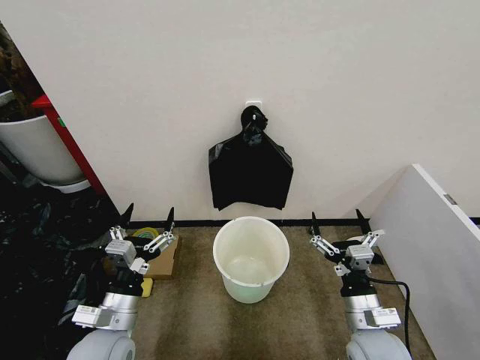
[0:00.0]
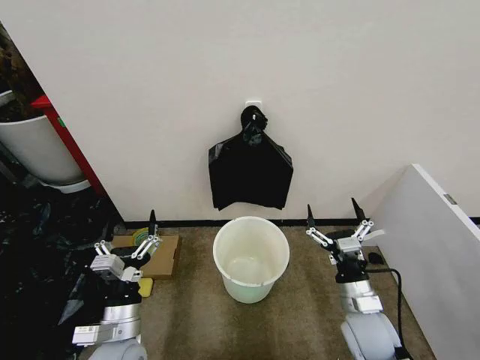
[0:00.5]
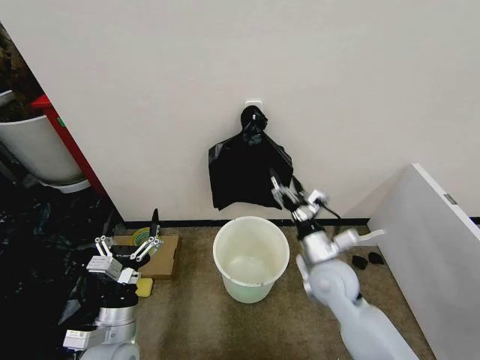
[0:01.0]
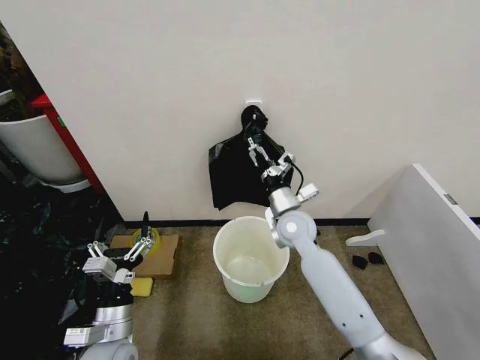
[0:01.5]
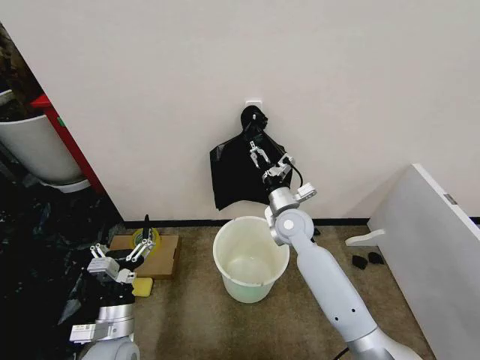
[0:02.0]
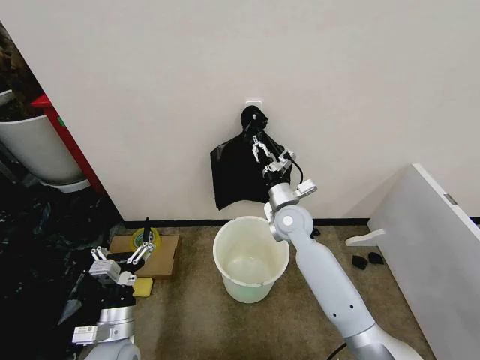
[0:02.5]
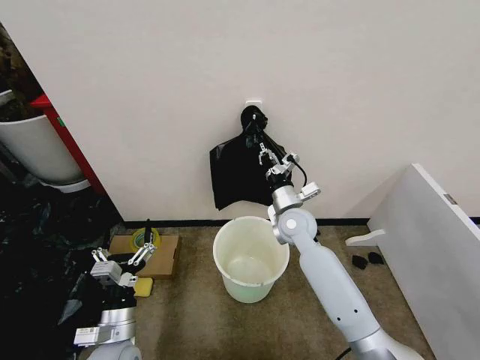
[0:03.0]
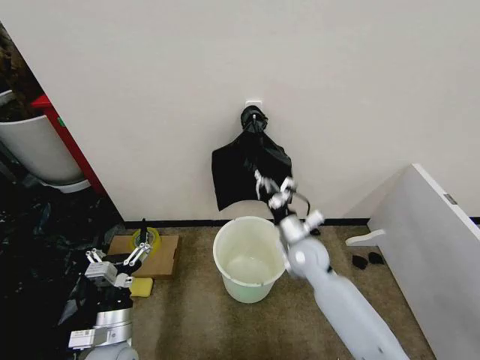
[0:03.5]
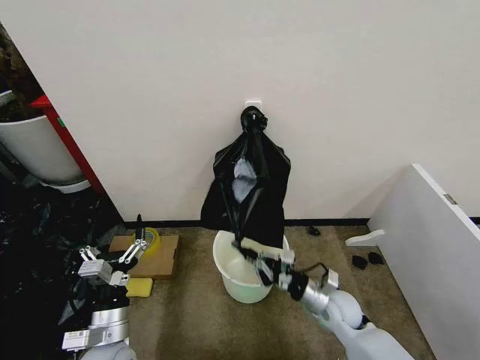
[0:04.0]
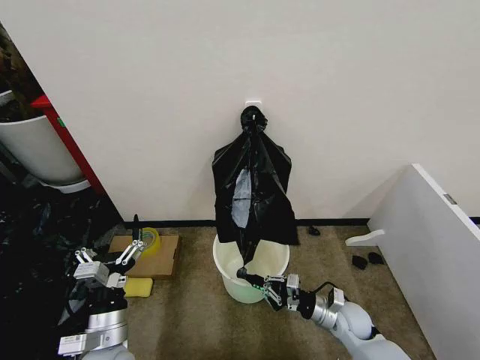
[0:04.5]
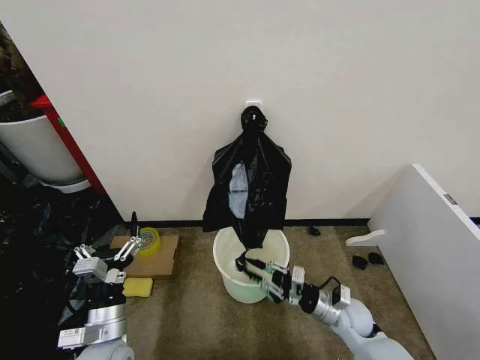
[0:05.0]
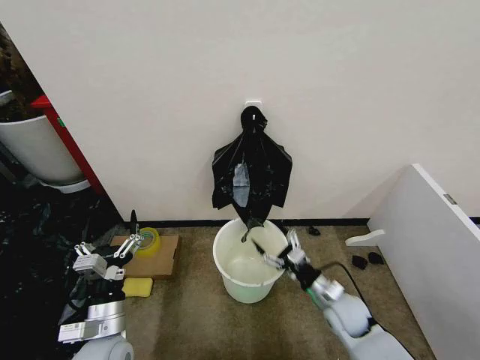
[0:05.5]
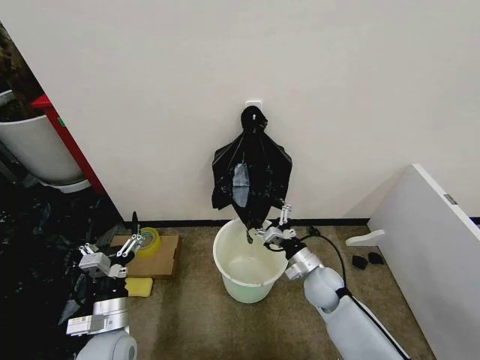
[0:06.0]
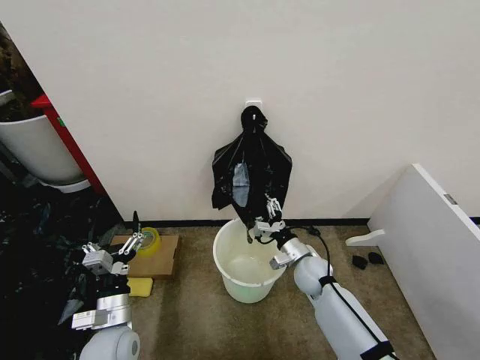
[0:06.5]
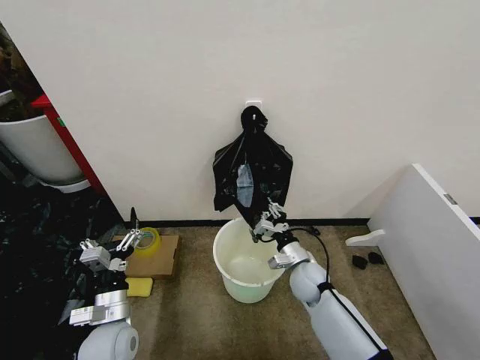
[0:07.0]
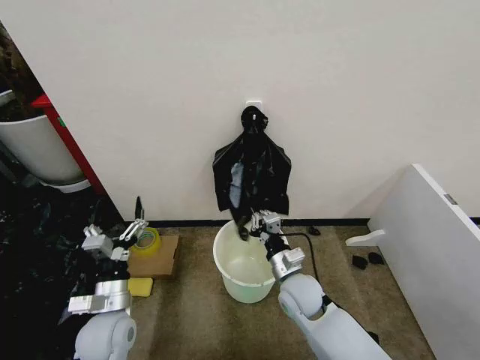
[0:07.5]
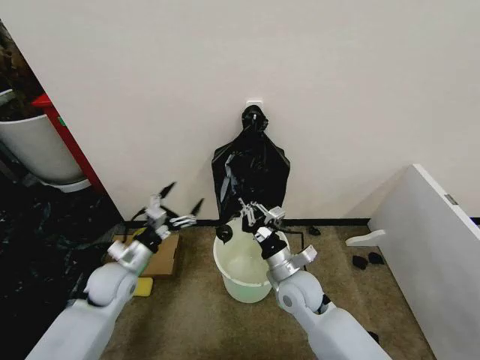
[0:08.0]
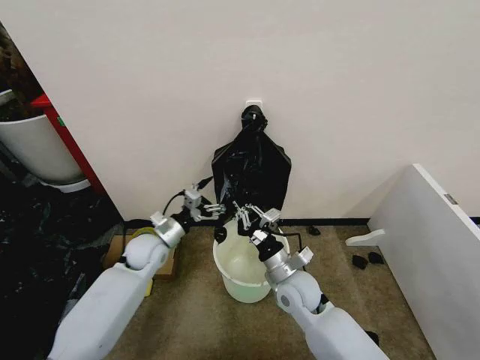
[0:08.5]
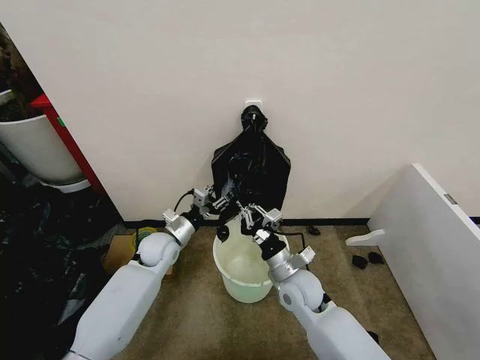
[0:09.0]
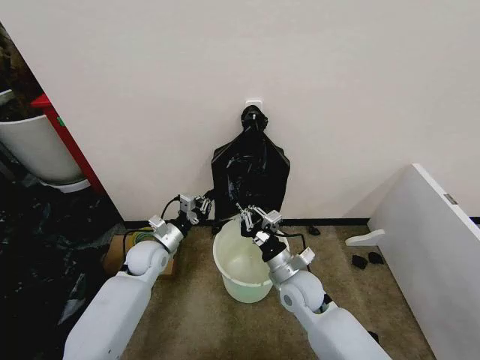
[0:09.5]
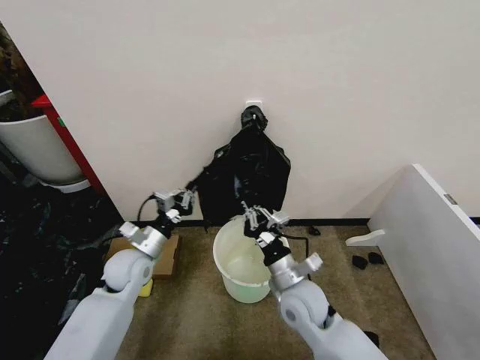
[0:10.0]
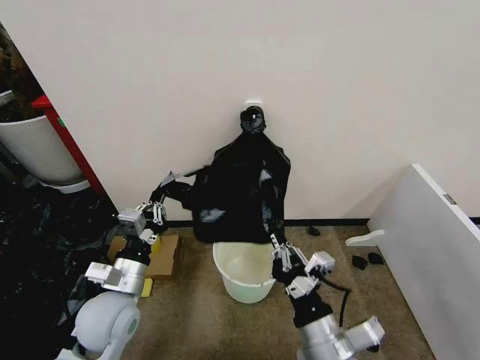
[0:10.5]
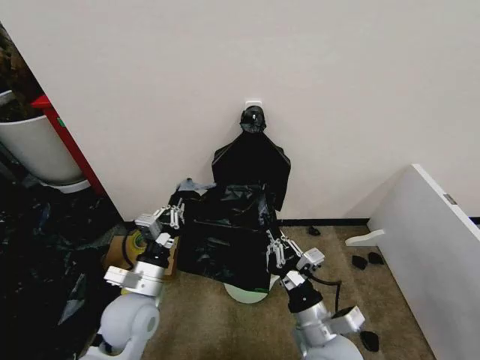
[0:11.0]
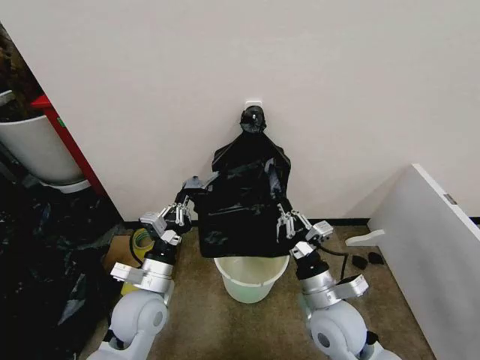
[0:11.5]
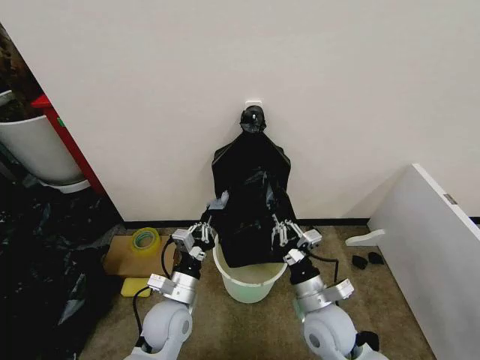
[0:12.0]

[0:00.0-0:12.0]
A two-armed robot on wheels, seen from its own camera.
Task of the whole recording: Place the garbage bag over the trash bin.
0:02.0 to 0:04.0: The right gripper travels backward, downward and to the right by roughly 25 cm, and closes its fingers.
0:04.0 to 0:06.0: The right gripper is displaced forward by approximately 5 cm, and opens up.
0:06.0 to 0:08.0: The left gripper goes roughly 15 cm forward. Meanwhile the right gripper shifts some 10 cm to the left and upward, and closes.
0:08.0 to 0:10.0: The left gripper goes forward and returns, roughly 10 cm each way, and closes.
0:10.0 to 0:12.0: The right gripper goes backward and returns, approximately 15 cm each way; the left gripper moves to the right, backward and downward, approximately 15 cm.

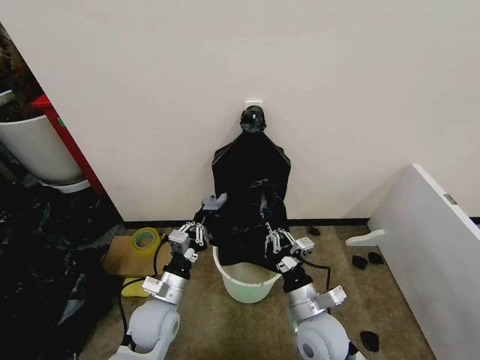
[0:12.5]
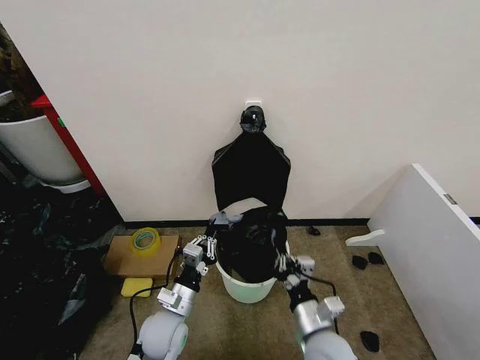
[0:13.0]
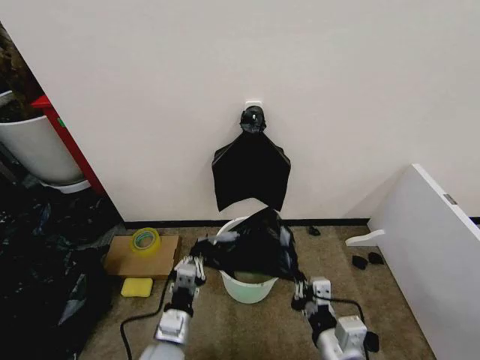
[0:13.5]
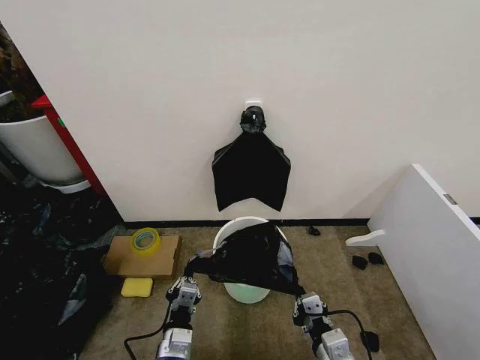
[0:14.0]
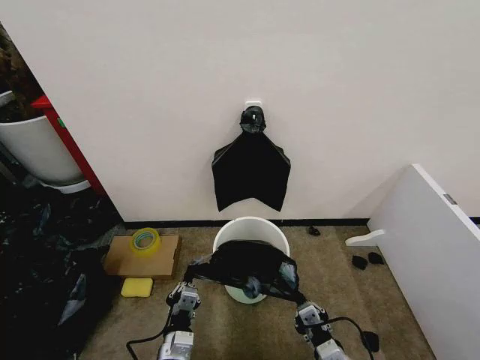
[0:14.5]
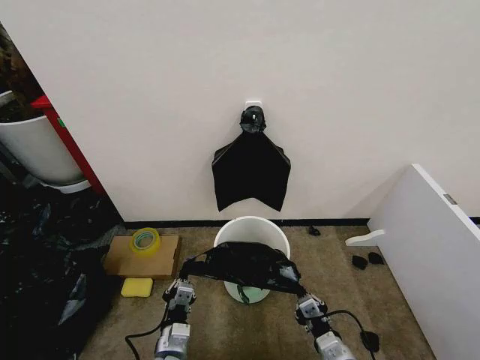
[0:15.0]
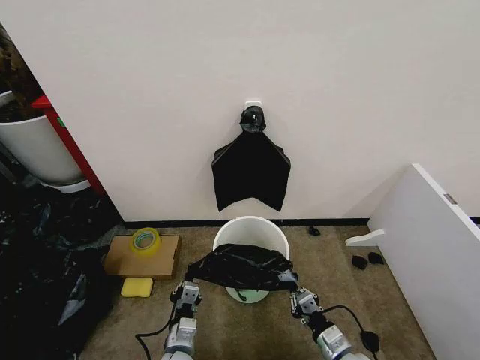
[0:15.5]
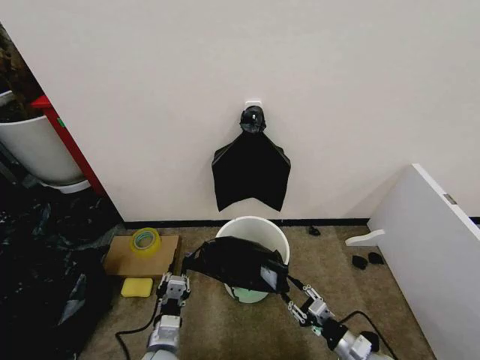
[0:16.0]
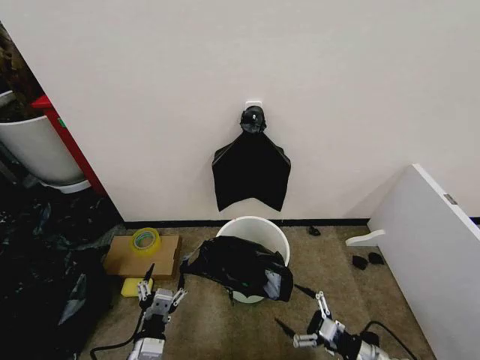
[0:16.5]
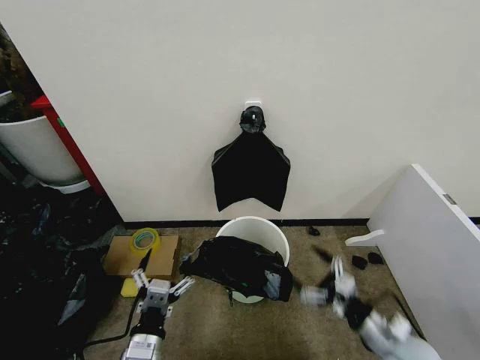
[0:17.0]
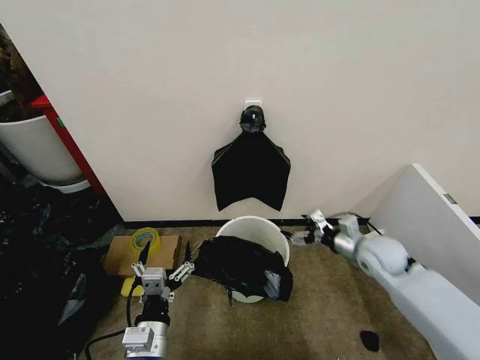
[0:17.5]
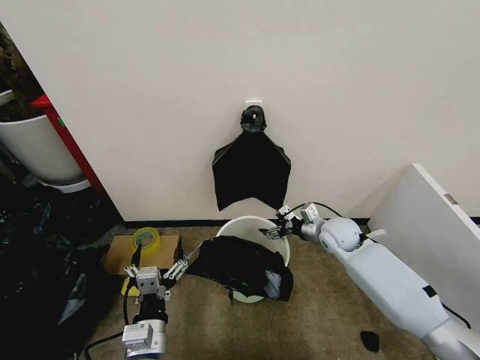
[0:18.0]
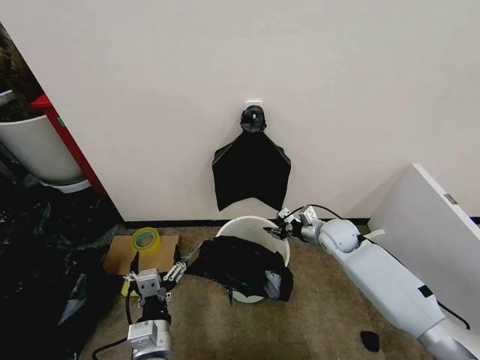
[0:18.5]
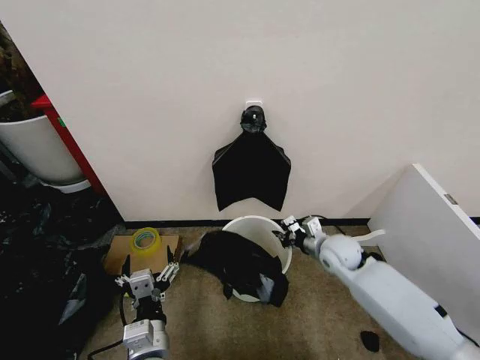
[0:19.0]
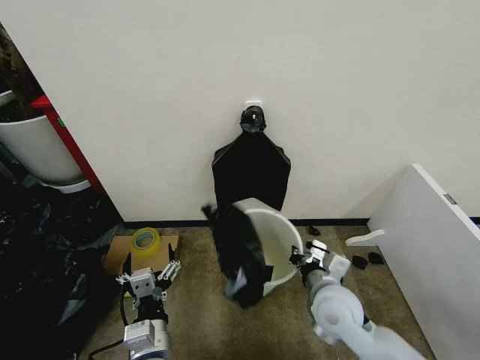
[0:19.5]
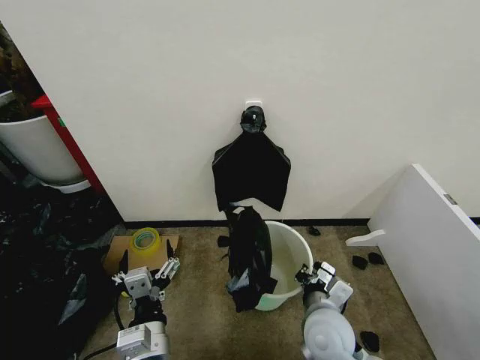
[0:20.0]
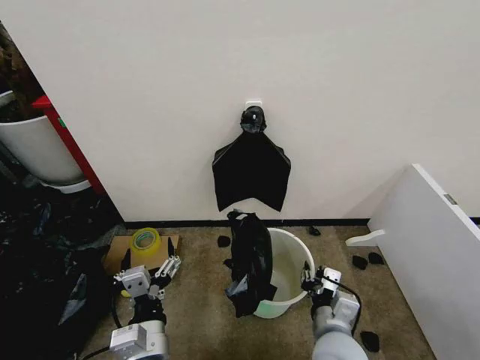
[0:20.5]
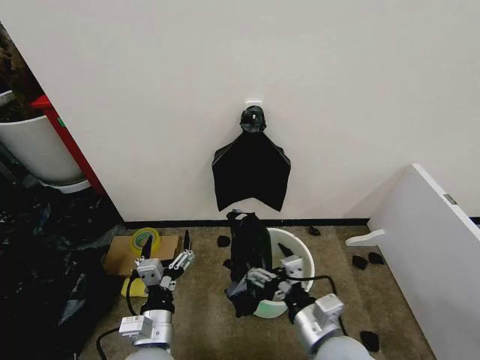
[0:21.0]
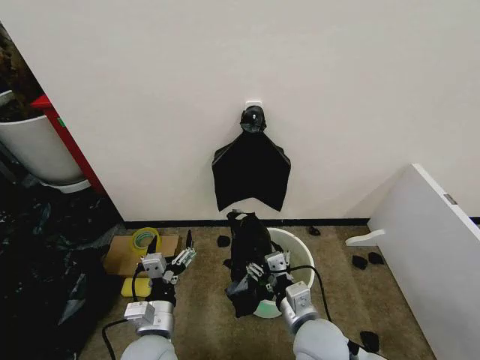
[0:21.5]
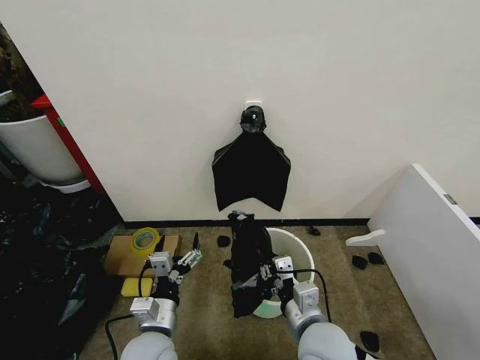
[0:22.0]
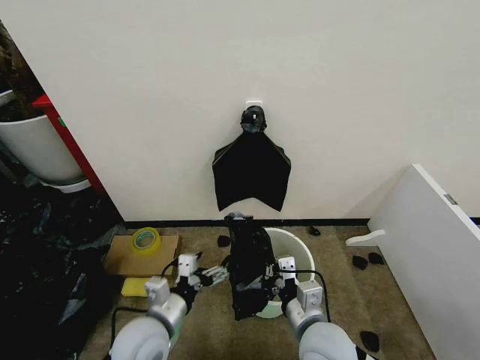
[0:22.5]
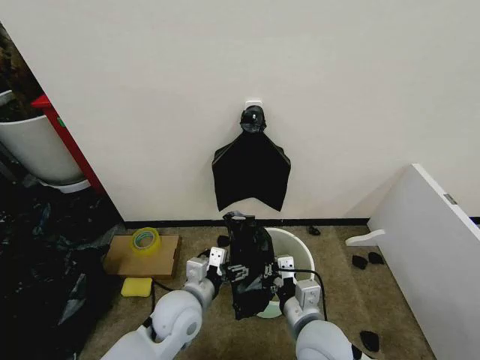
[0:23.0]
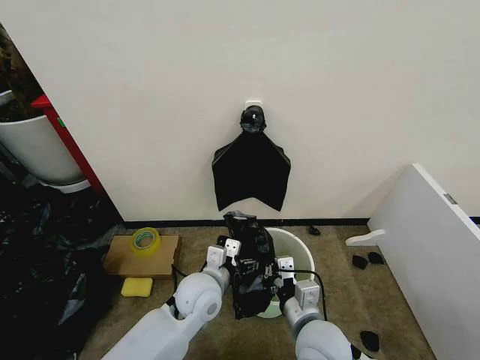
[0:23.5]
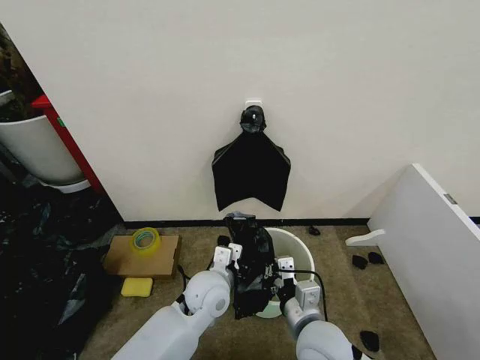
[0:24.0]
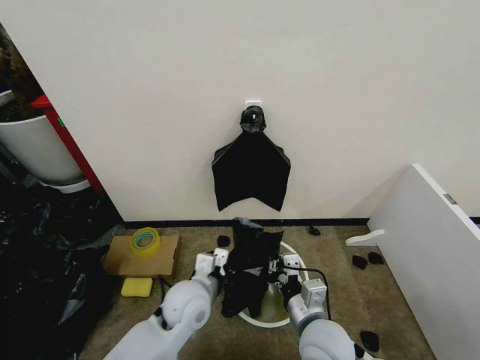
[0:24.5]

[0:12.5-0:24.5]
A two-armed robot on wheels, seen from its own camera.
Task of the whole recording: Place the garbage bag over the trash bin.
0:12.5 to 0:14.5: The left gripper goes some 15 cm backward and downward. The right gripper moves backward, to the right and downward, some 15 cm.
0:14.5 to 0:16.5: The left gripper changes place by some 5 cm, and opens up, while the right gripper moves to the right and downward, some 15 cm, and opens up.
0:16.5 to 0:18.5: The left gripper travels upward by some 5 cm; the right gripper goes approximately 30 cm forward and upward, and closes its fingers.
0:18.5 to 0:20.5: The right gripper is displaced backward by some 30 cm, and closes, then reopens.
0:20.5 to 0:22.5: The right gripper closes up. Meanwhile the left gripper goes some 5 cm forward.
0:22.5 to 0:24.5: The left gripper heads forward and to the right, covering some 10 cm, and closes its fingers.

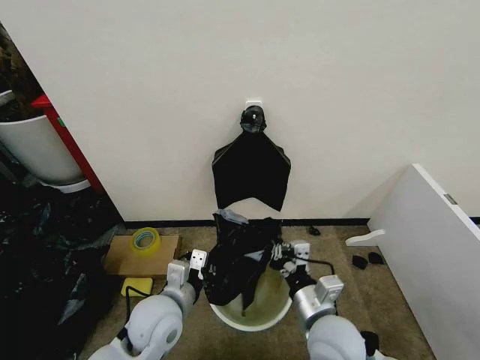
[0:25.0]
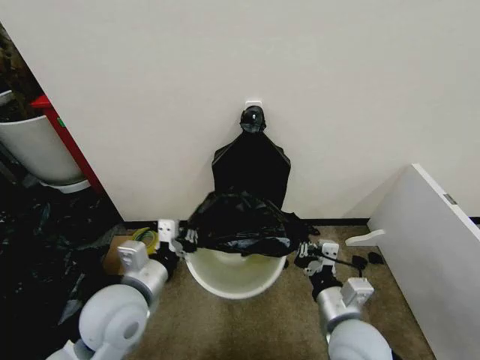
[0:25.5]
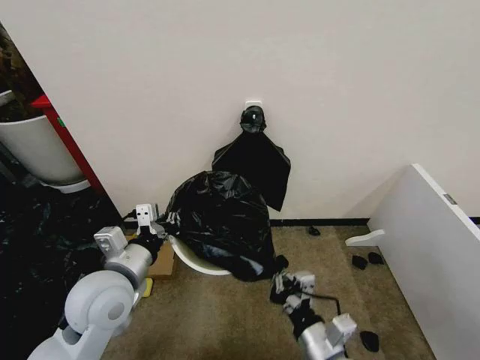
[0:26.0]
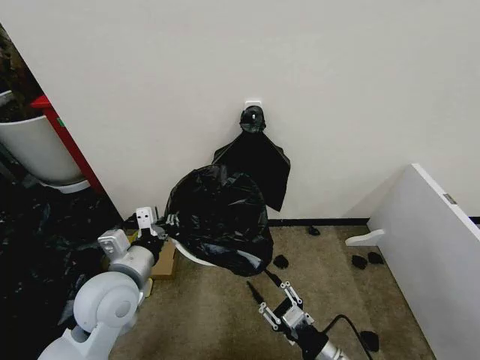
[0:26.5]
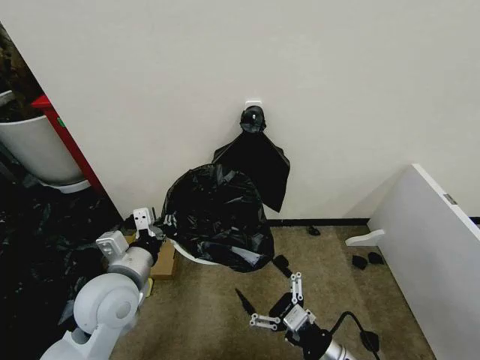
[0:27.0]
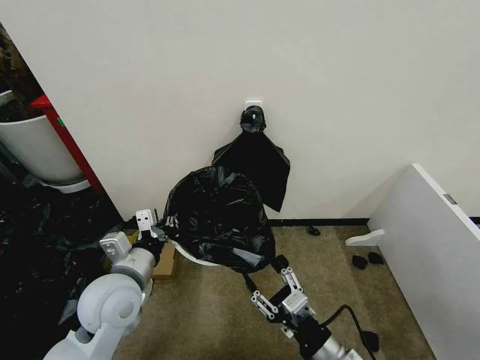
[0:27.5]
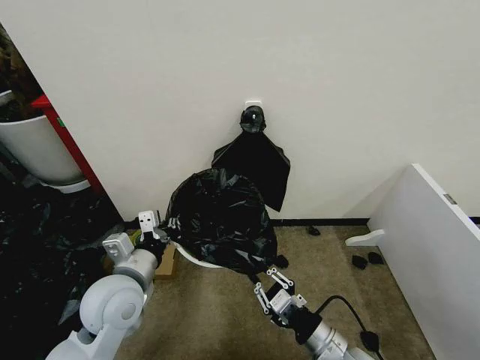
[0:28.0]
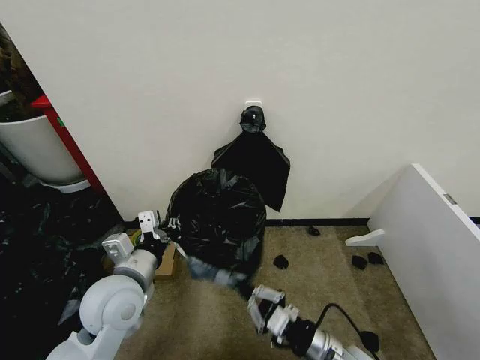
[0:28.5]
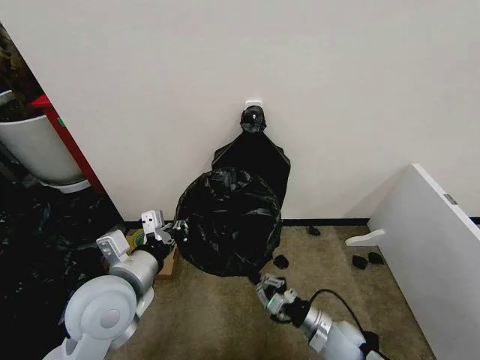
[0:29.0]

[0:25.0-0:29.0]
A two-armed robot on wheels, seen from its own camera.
Task of the whole recording: Place the garbage bag over the trash bin.
0:25.0 to 0:27.0: The left gripper moves upward and to the left, some 10 cm, while the right gripper shifts some 10 cm backward and downward, and opens its fingers.
0:27.0 to 0:29.0: The right gripper heads forward and downward, covering roughly 15 cm, and closes.
